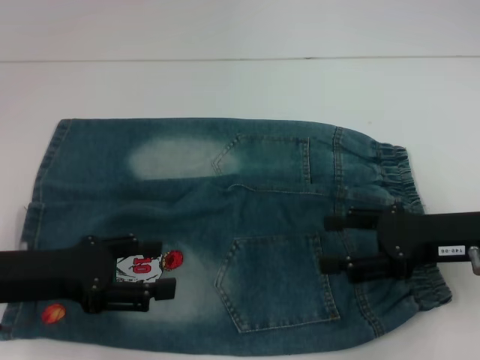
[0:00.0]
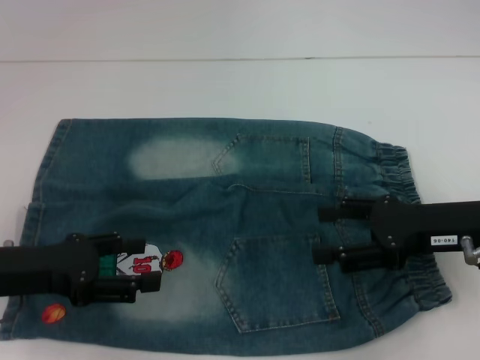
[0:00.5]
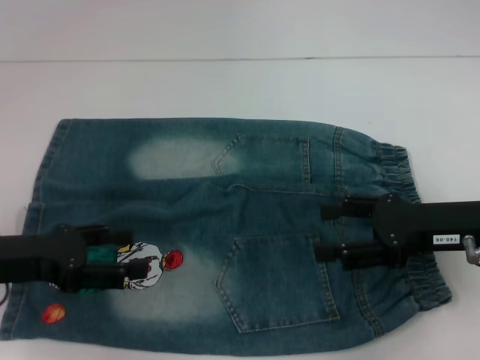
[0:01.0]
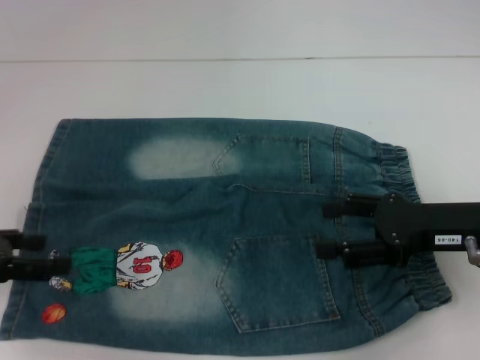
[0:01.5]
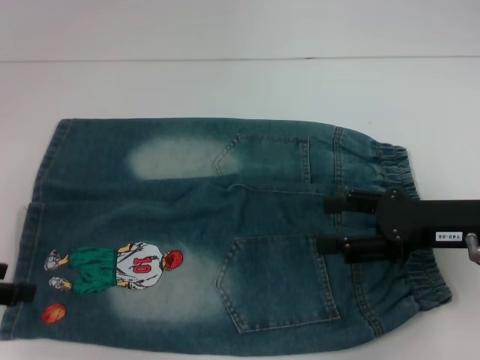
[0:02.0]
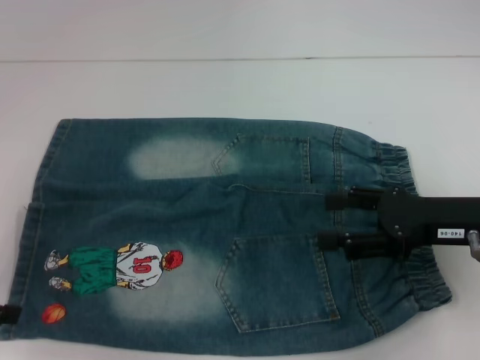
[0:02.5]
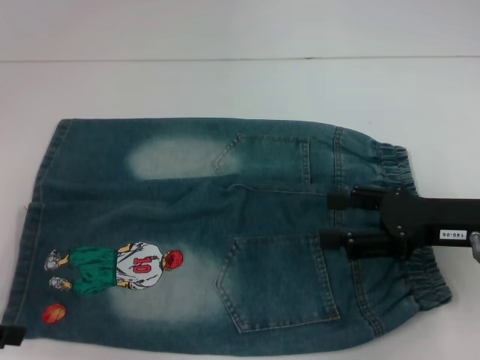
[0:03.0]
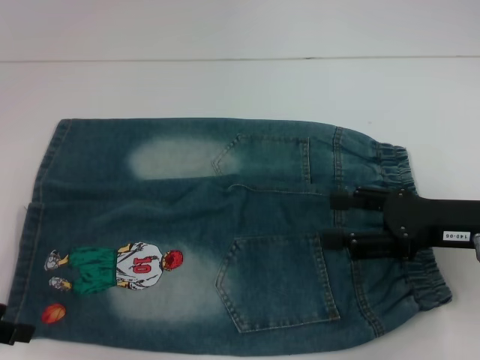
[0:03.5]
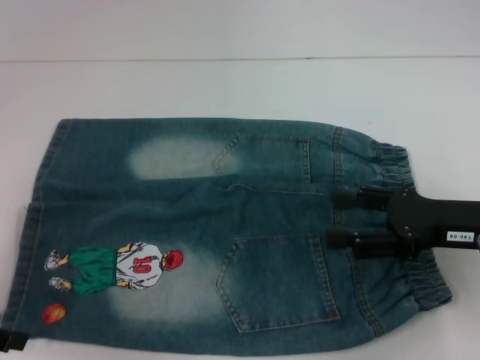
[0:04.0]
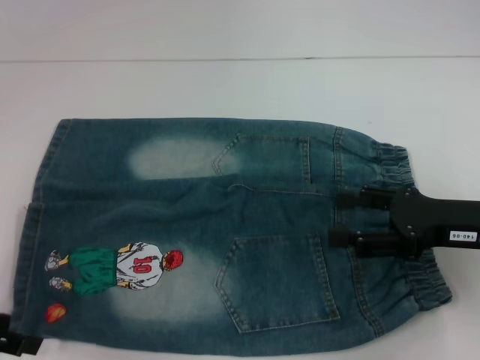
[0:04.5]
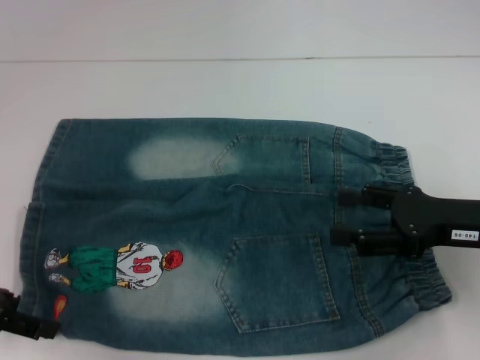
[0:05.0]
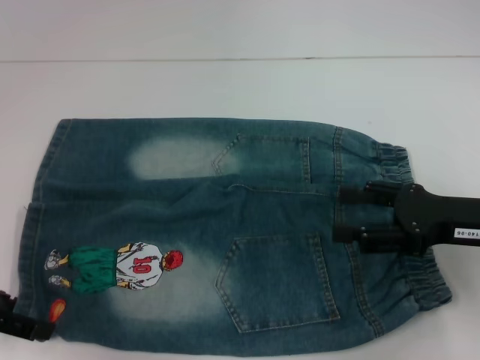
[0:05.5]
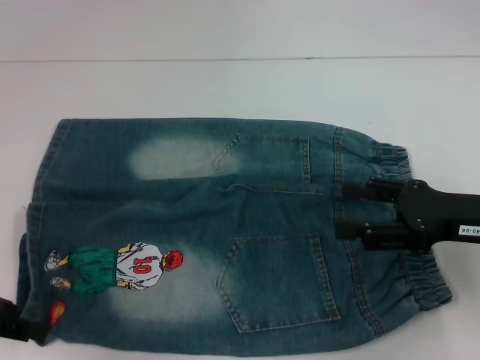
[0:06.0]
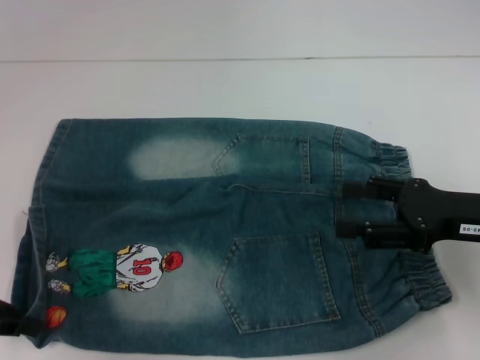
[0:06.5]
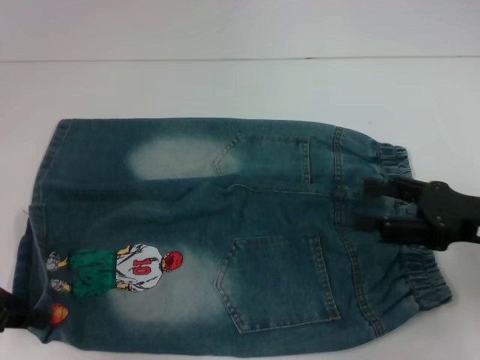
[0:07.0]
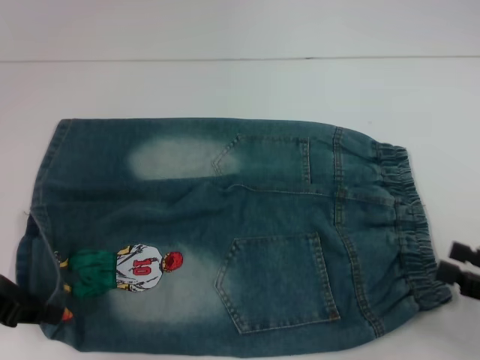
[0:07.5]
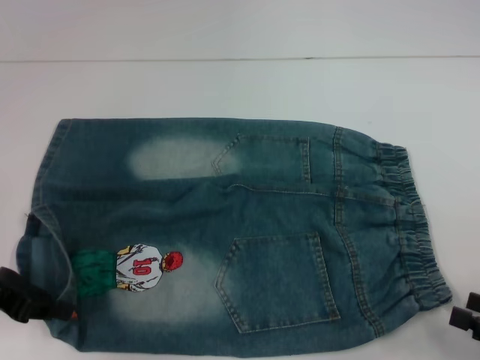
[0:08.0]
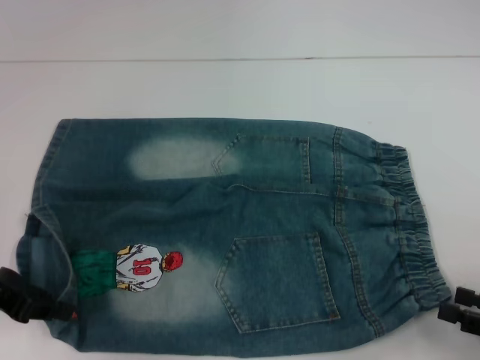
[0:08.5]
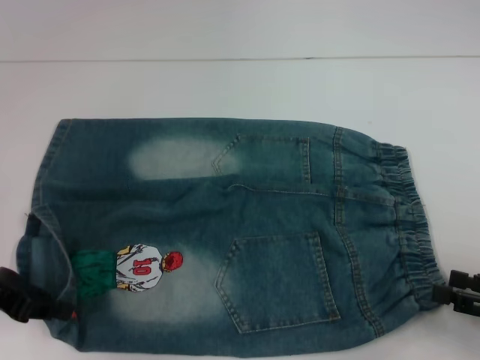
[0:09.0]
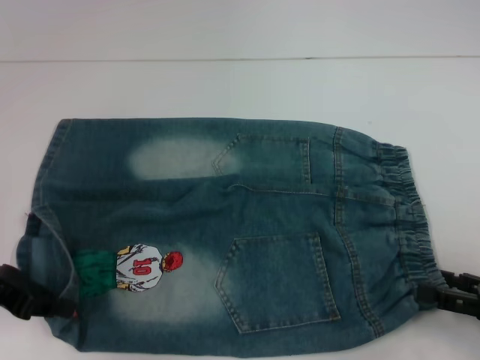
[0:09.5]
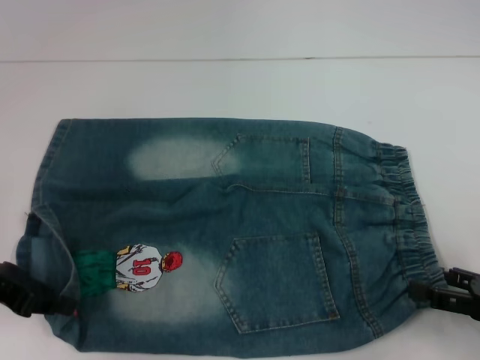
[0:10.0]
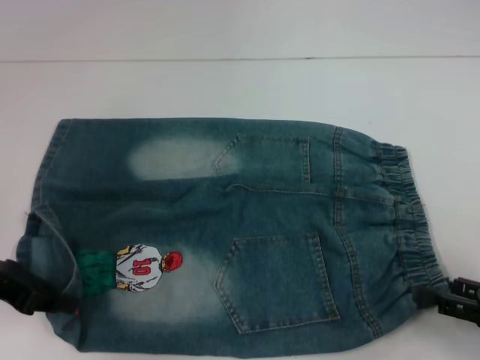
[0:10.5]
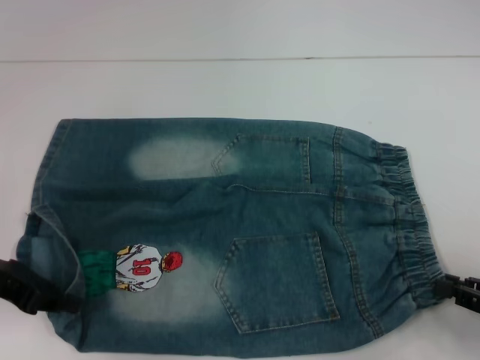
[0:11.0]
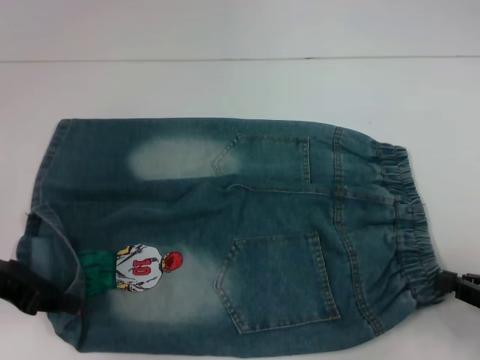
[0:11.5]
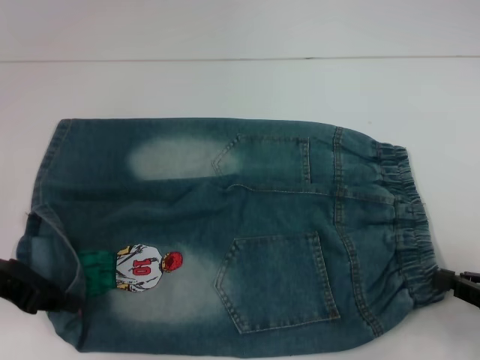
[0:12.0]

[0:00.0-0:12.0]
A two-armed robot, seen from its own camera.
Step, 0:00.0 to 0:06.5: Grab the lower left pant leg with your left hand.
0:00.0 to 0:02.0: The left gripper is displaced to the left by some 10 cm.
0:02.0 to 0:06.0: The grippers stay close to where they were, moving slightly.
0:06.0 to 0:08.0: The left gripper closes up. Meanwhile the right gripper heads backward, to the right and downward, covering approximately 15 cm.
0:08.0 to 0:10.0: The right gripper moves forward, some 5 cm.
0:10.0 to 0:12.0: The right gripper closes its fingers.

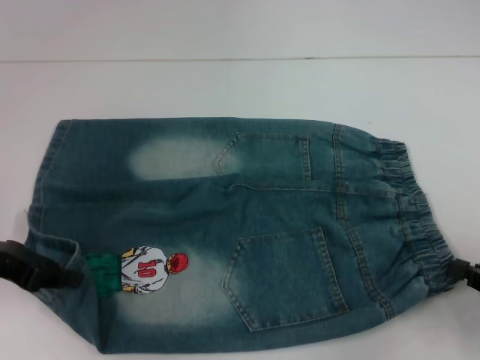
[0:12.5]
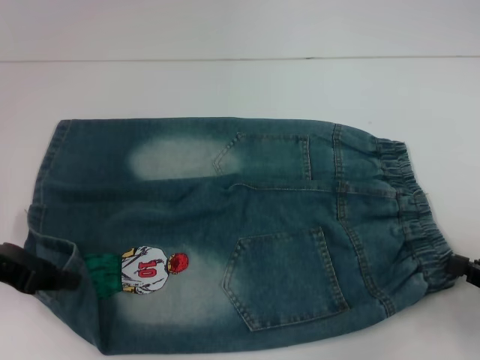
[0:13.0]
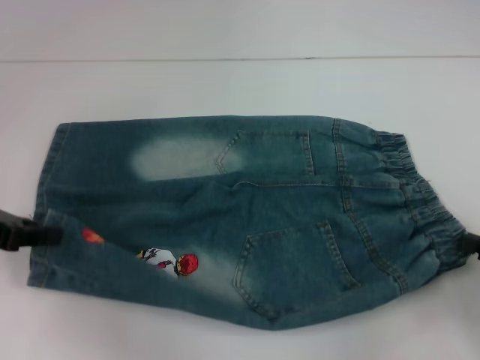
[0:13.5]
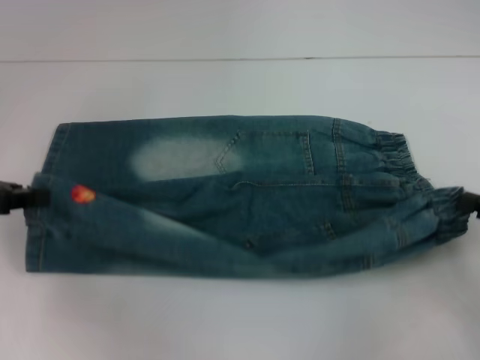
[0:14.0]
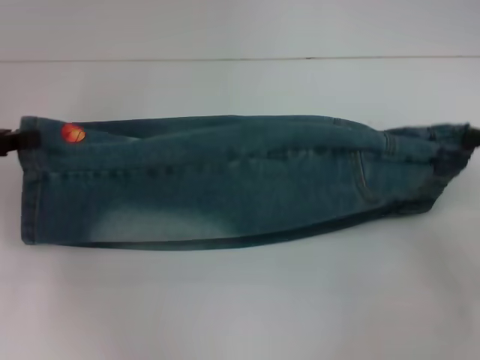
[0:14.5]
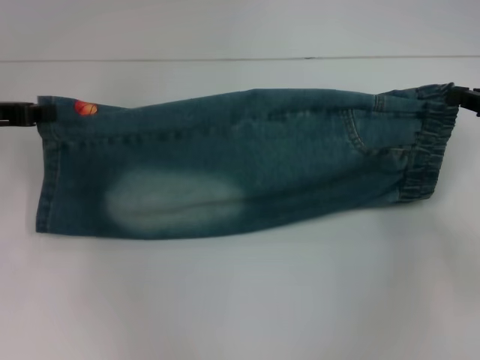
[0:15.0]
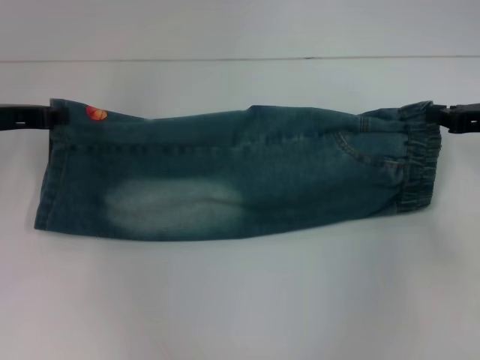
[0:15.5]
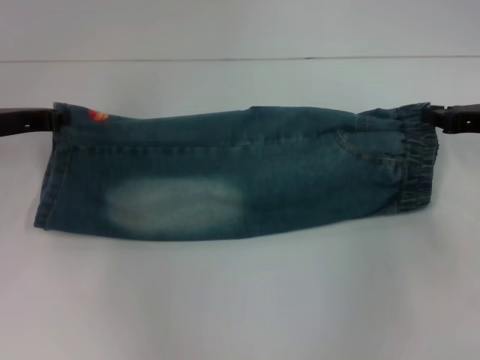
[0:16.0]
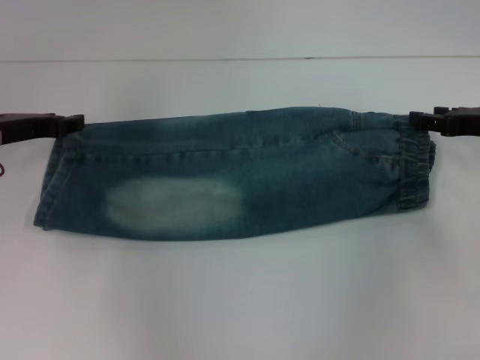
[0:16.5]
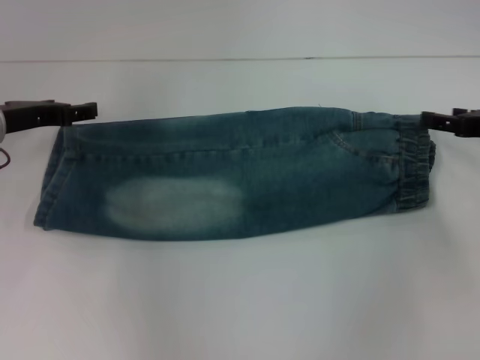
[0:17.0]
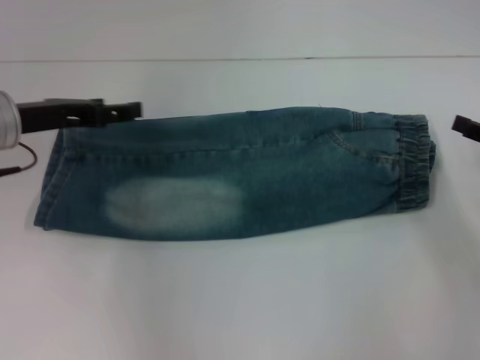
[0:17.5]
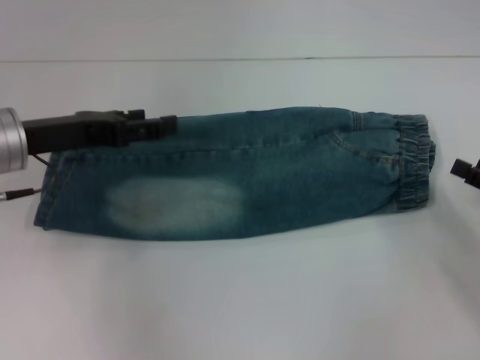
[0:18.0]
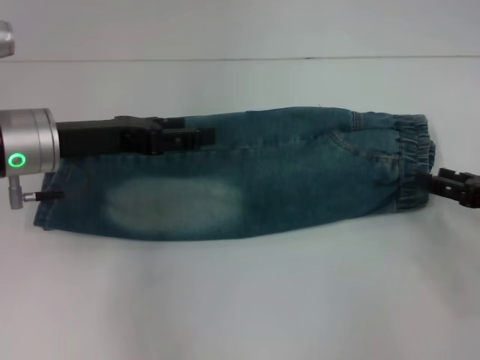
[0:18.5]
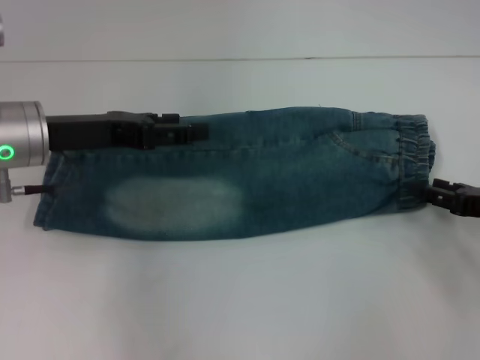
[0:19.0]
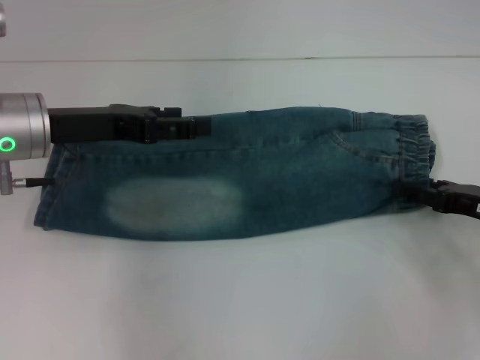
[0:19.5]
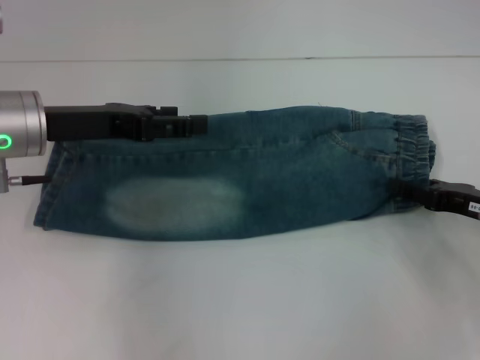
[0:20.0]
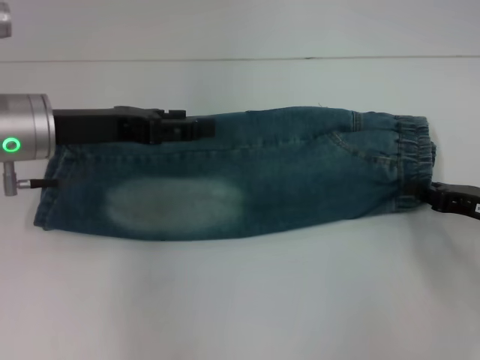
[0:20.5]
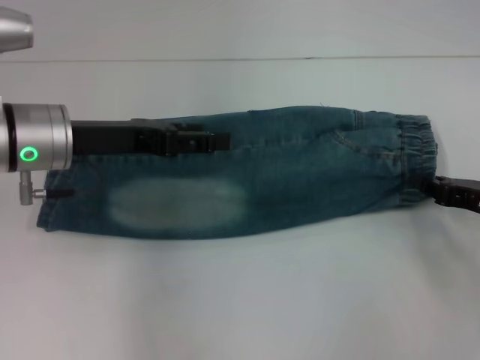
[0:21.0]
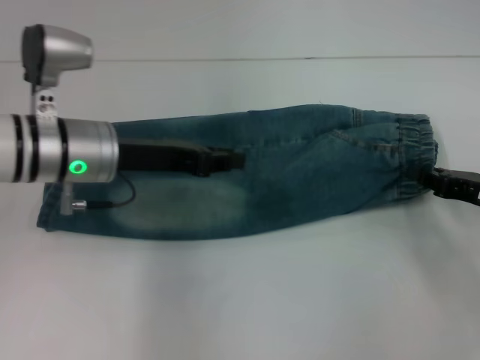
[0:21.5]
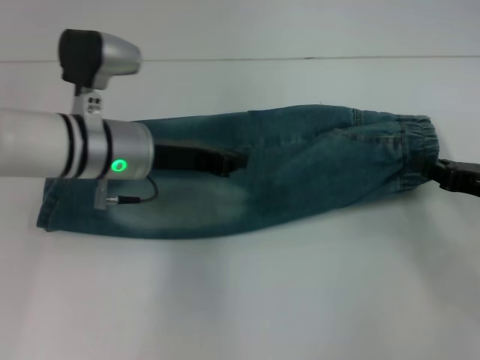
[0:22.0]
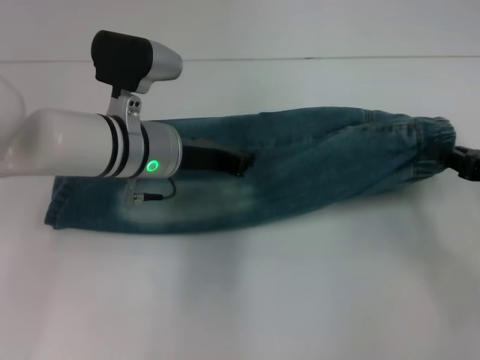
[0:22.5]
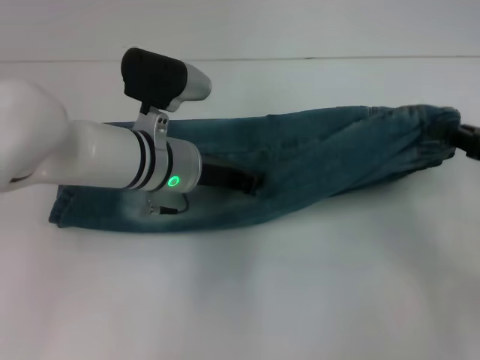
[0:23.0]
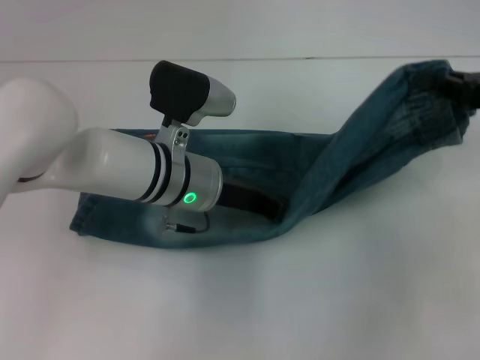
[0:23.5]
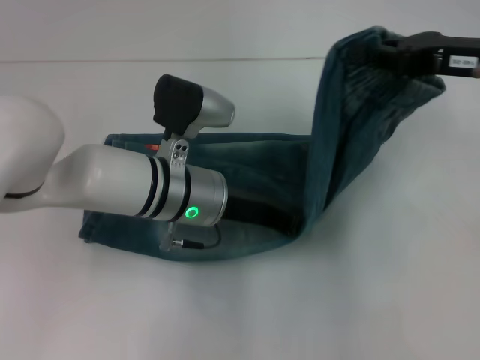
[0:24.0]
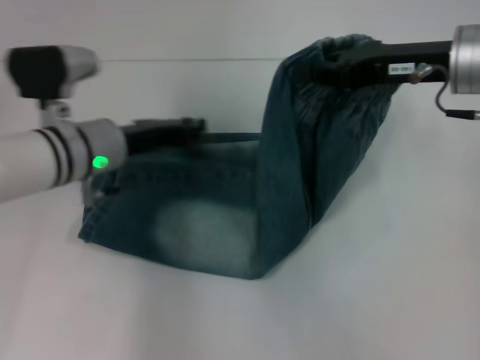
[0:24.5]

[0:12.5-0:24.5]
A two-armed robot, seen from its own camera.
Step, 0:12.5 to 0:16.0: Fold upward with your right hand.
Step, 0:16.5 to 0:20.5: Grab the waistband with your right hand.
Step, 0:21.5 to 0:24.0: Press the middle of the pants with your left hand.
0:12.5 to 0:14.5: The left gripper ends up some 5 cm from where it was; the right gripper travels forward and upward by approximately 15 cm.
0:14.5 to 0:16.5: The right gripper is displaced forward by roughly 10 cm. The left gripper is displaced to the right by some 5 cm.
0:16.5 to 0:18.5: The left gripper travels to the right by roughly 5 cm, and opens. The right gripper heads backward, covering approximately 10 cm, and opens its fingers.
0:18.5 to 0:20.5: The right gripper closes its fingers.
0:20.5 to 0:22.5: The left gripper travels to the right and downward by roughly 10 cm, and closes.
0:22.5 to 0:24.5: The left gripper heads to the left, covering approximately 5 cm, while the right gripper heads to the left, upward and forward, covering about 20 cm.

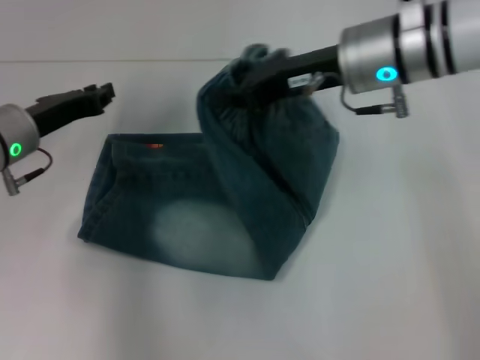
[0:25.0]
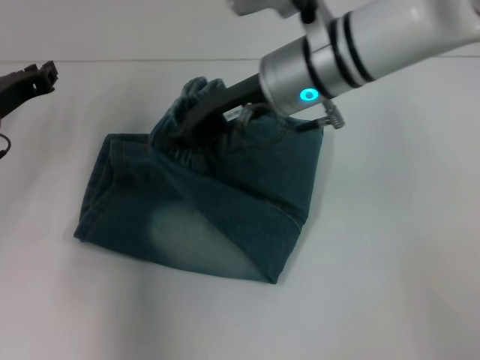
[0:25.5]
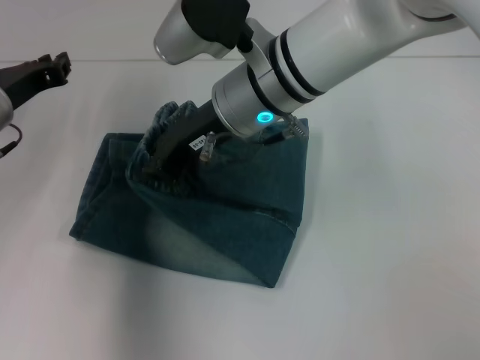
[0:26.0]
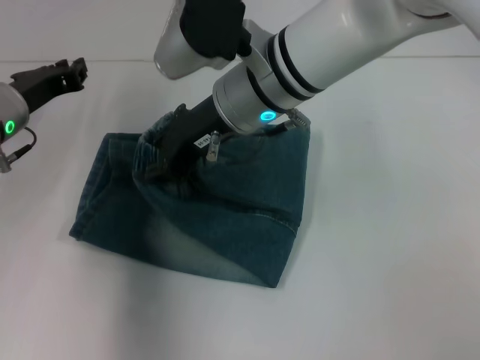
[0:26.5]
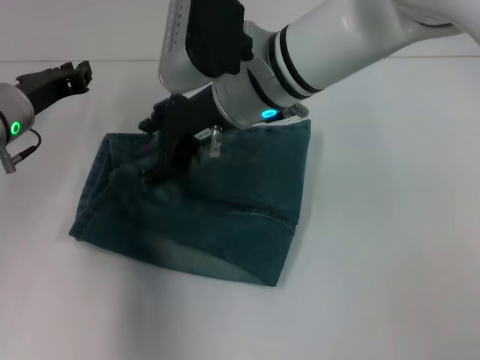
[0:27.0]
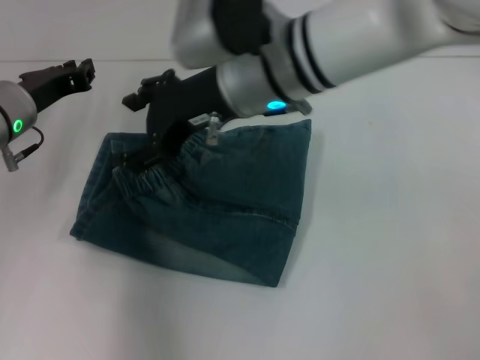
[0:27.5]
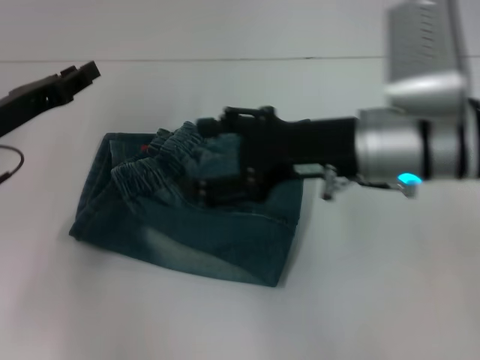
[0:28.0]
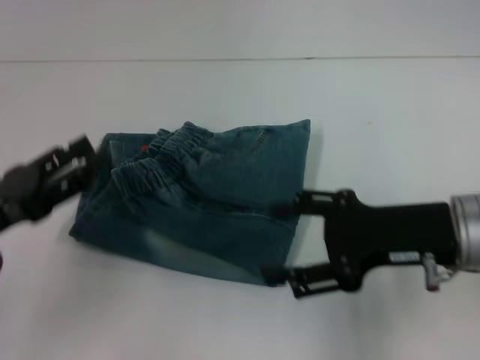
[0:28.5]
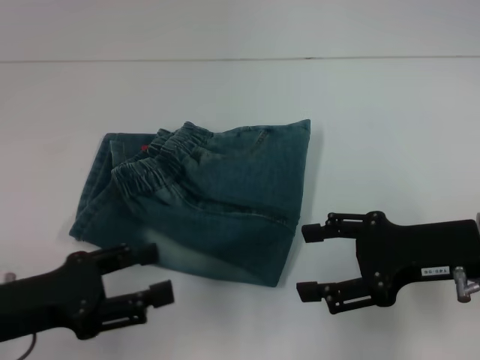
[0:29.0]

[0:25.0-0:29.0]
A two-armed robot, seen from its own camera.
Step, 0:25.0 to 0:27.0: Fold to the left with your right hand.
0:25.0 to 0:27.0: The right gripper moves to the left, roughly 10 cm.
0:27.0 to 0:29.0: The left gripper travels backward by some 20 cm, and opens up. Meanwhile the right gripper travels to the right and backward by approximately 25 cm, and opens up.
